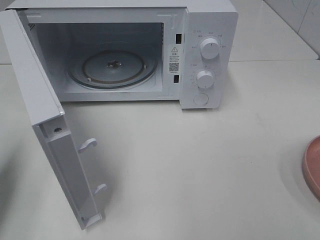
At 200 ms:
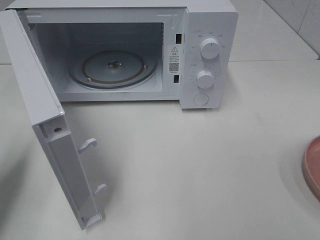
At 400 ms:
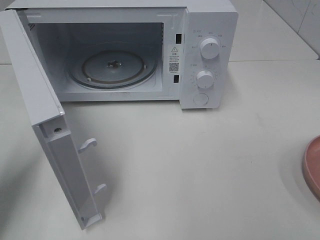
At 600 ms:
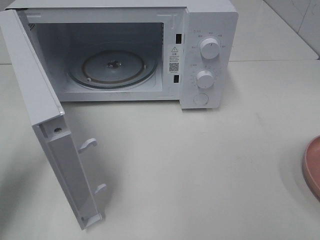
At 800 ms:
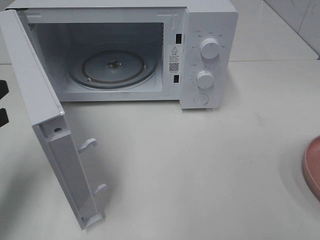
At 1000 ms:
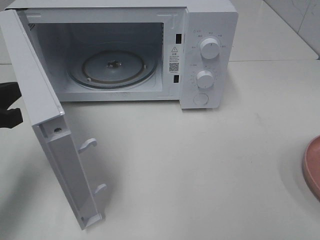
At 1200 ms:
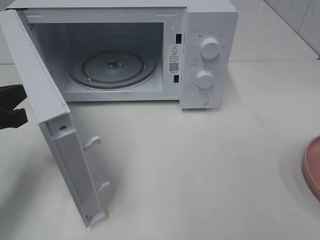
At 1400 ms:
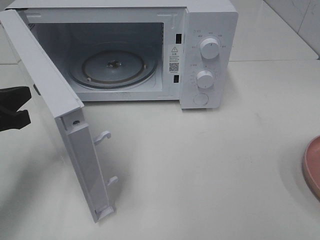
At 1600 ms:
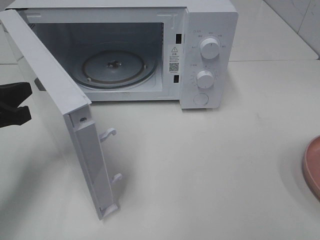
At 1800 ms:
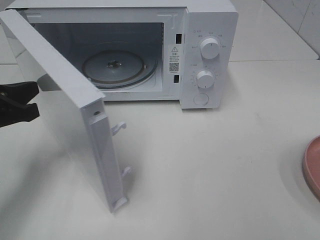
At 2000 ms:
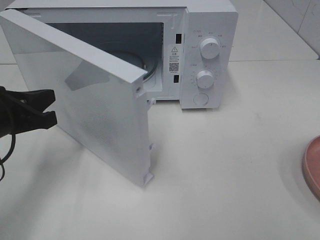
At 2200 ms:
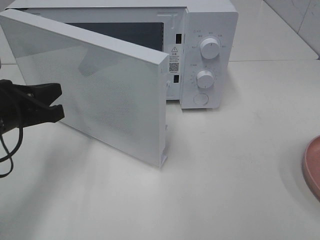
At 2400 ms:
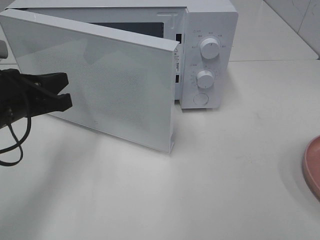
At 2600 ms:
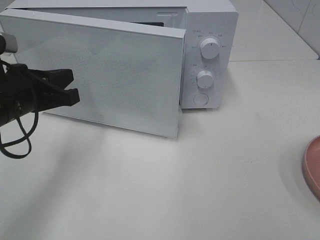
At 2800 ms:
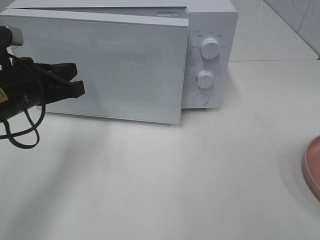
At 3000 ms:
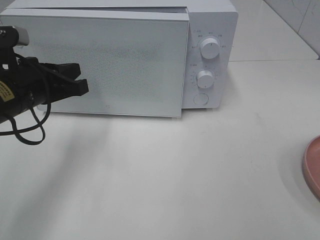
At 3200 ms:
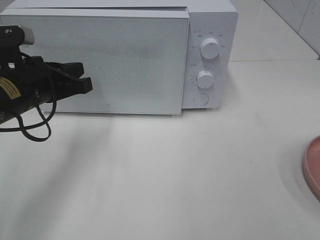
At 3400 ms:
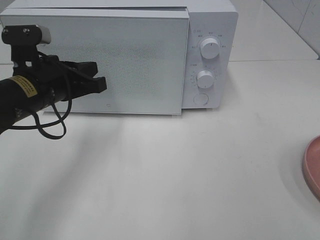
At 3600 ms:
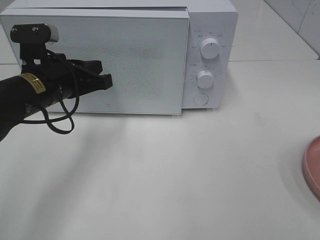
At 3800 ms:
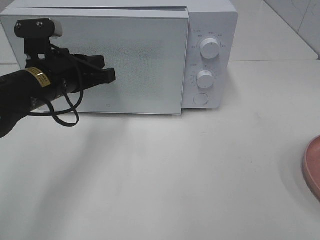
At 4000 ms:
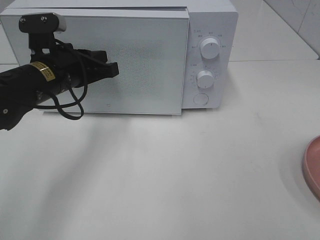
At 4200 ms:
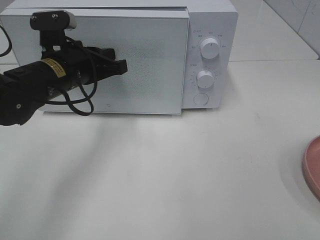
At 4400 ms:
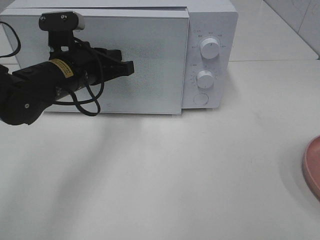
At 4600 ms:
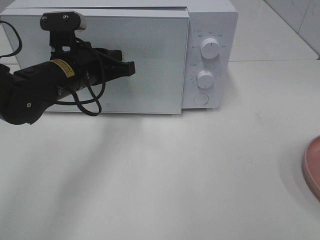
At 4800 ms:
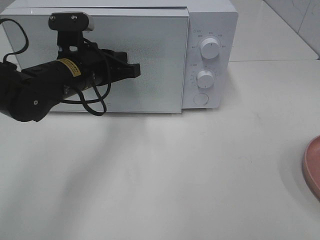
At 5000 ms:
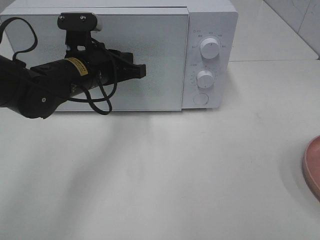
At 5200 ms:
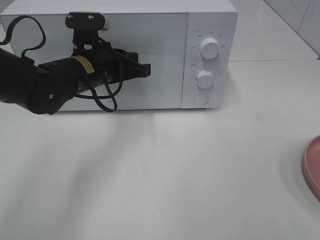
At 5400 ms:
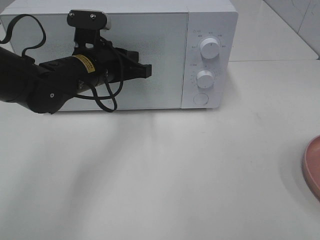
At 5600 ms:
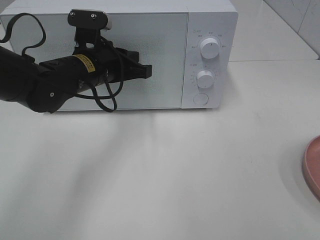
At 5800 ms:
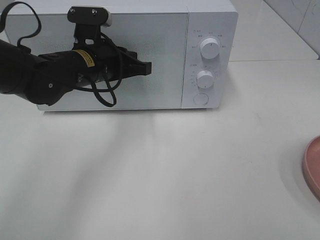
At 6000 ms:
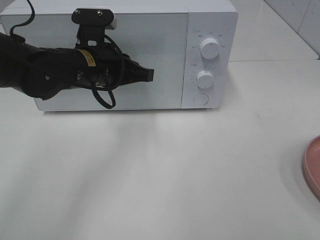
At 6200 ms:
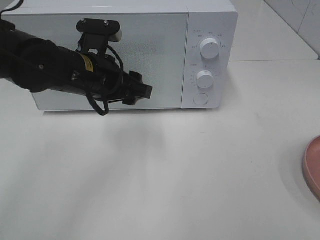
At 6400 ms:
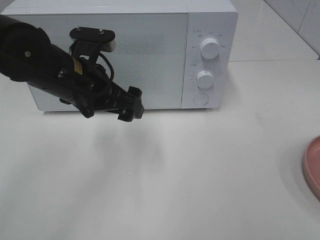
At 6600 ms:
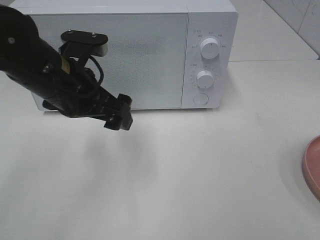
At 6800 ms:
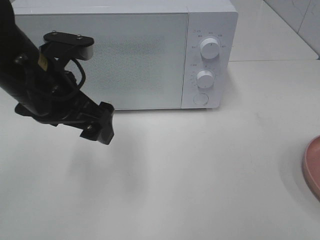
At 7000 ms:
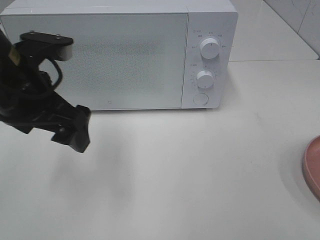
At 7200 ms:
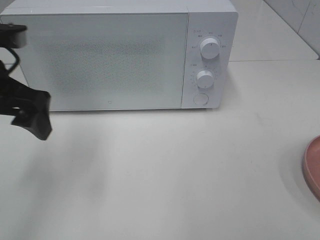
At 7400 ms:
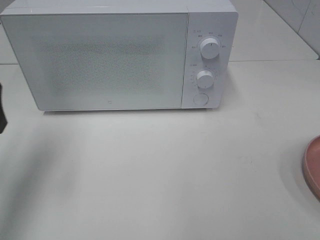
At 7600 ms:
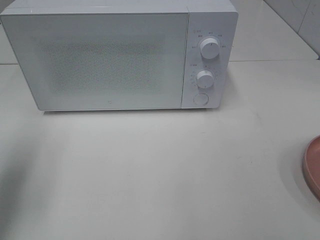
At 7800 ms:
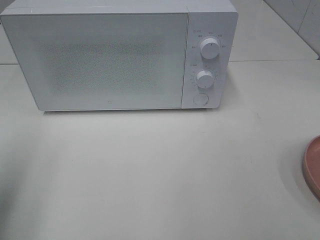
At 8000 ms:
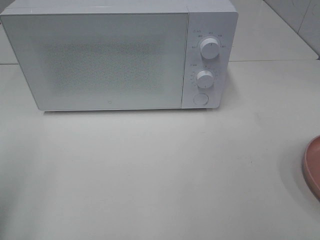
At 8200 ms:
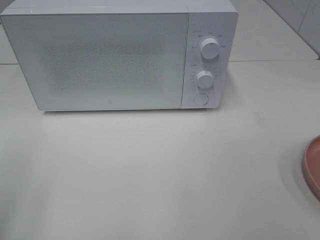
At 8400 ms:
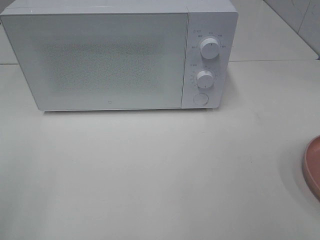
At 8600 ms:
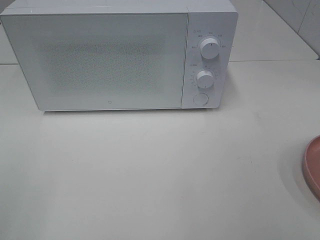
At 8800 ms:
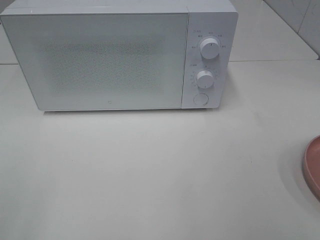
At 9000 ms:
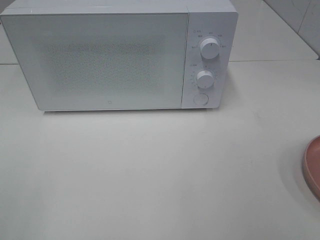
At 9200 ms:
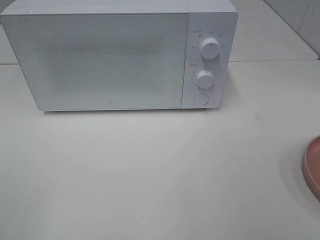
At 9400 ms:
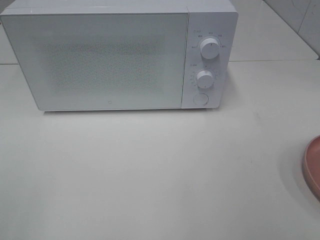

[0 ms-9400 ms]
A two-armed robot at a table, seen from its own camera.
Task of the whole recording: Heat the burger.
Step, 0 ms to 6000 ms: Left hand: close the microwave door.
0 ms to 1600 ms: The left gripper travels to the right, forward and downward by some 10 cm.
1600 ms to 3200 ms: The left gripper shifts approximately 10 cm to the right and forward.
3200 ms to 4800 ms: The left gripper moves to the right and forward, about 10 cm.
4800 ms to 6200 ms: The left gripper opens its fingers.
6200 ms to 7800 ms: The left gripper heads to the left and backward, covering some 25 cm, and opens up.
7800 ms to 9400 ms: The left gripper heads backward, covering some 15 cm.

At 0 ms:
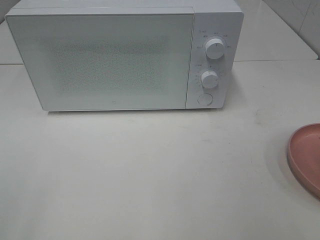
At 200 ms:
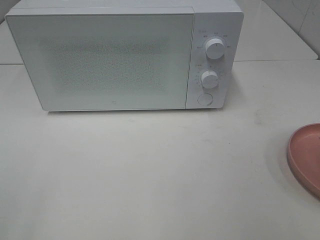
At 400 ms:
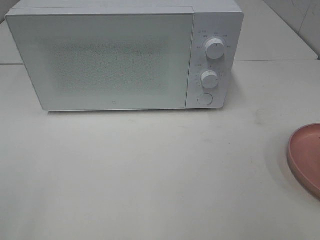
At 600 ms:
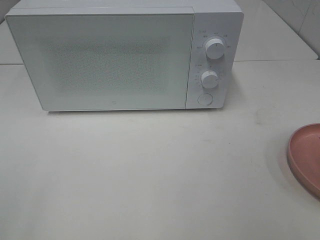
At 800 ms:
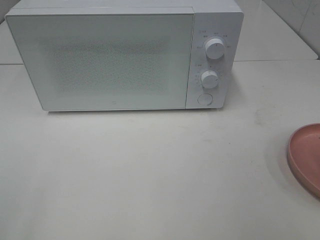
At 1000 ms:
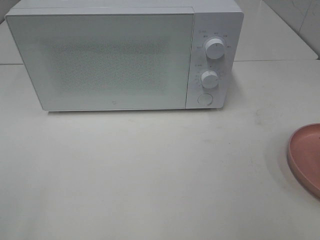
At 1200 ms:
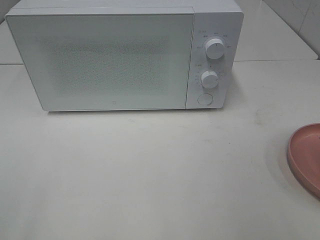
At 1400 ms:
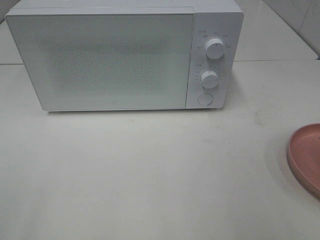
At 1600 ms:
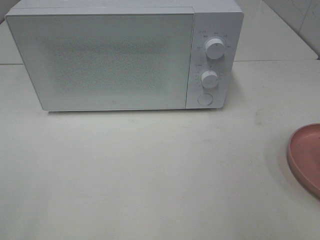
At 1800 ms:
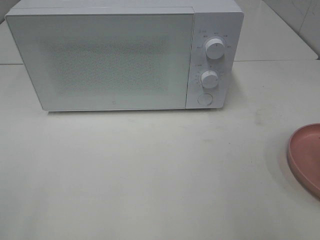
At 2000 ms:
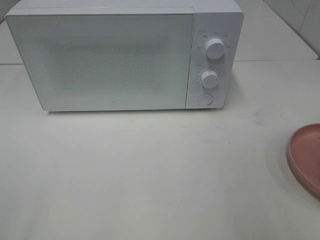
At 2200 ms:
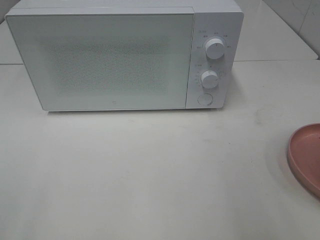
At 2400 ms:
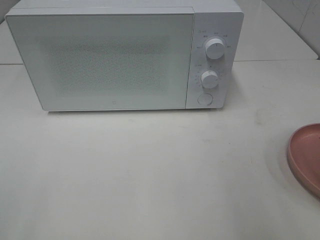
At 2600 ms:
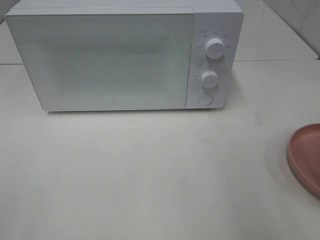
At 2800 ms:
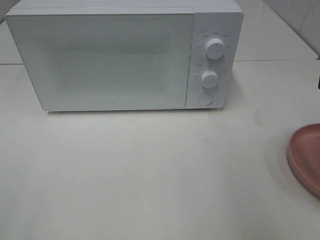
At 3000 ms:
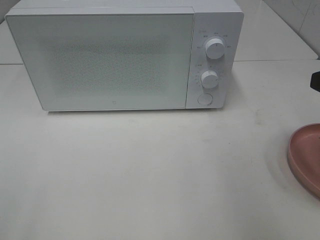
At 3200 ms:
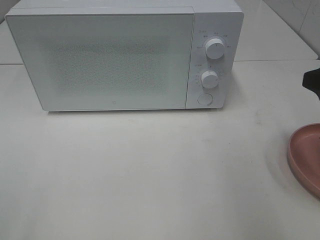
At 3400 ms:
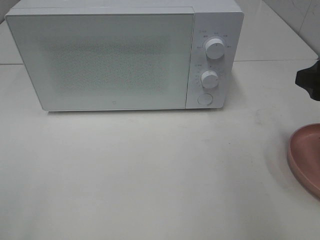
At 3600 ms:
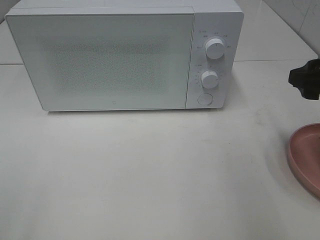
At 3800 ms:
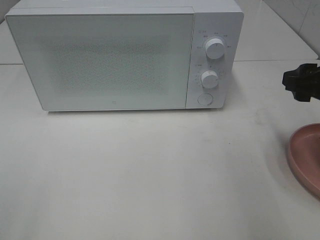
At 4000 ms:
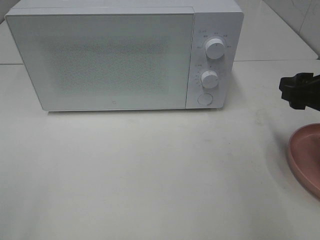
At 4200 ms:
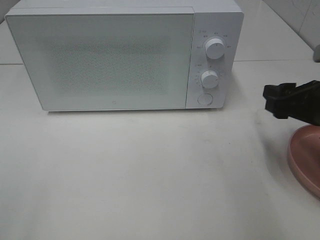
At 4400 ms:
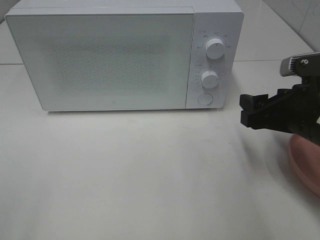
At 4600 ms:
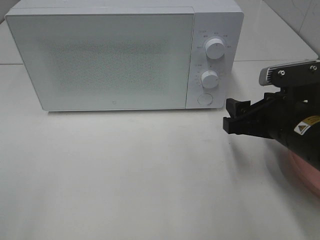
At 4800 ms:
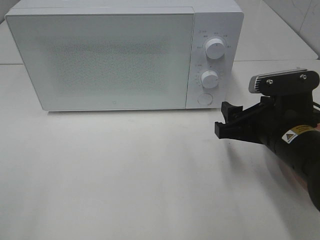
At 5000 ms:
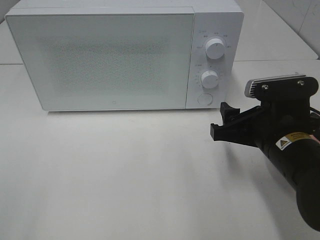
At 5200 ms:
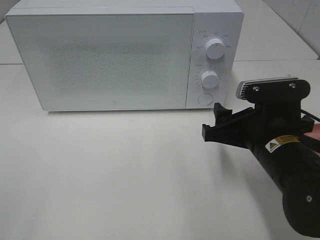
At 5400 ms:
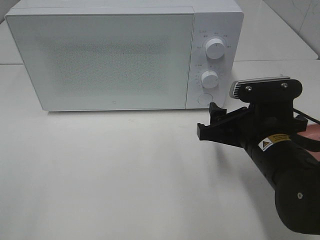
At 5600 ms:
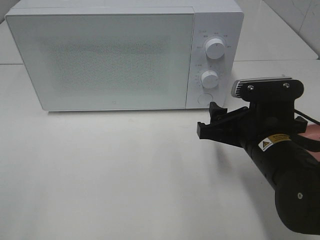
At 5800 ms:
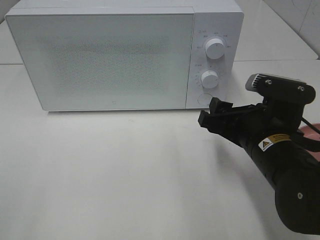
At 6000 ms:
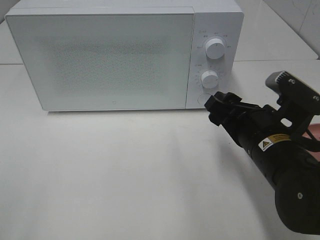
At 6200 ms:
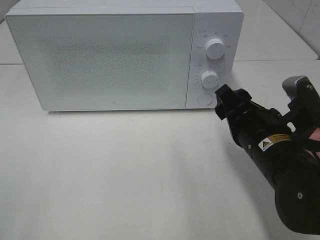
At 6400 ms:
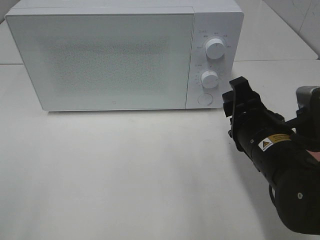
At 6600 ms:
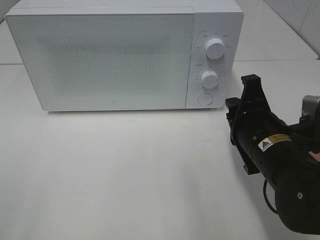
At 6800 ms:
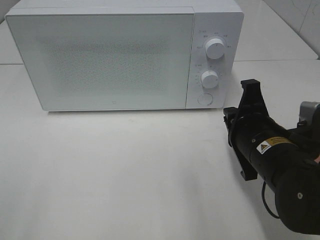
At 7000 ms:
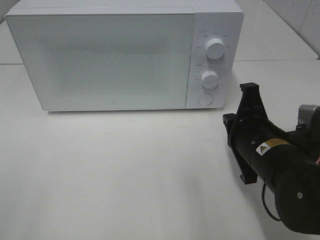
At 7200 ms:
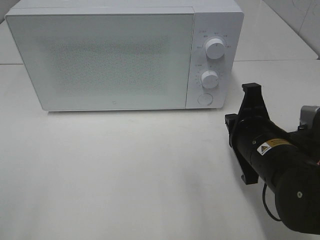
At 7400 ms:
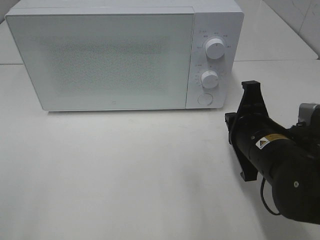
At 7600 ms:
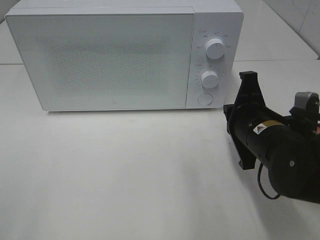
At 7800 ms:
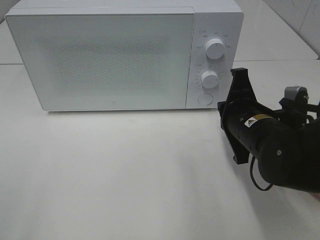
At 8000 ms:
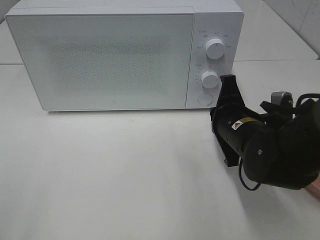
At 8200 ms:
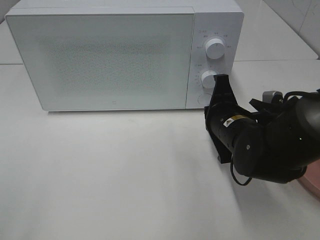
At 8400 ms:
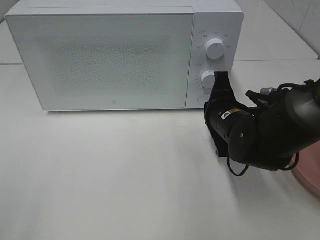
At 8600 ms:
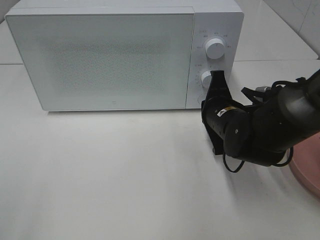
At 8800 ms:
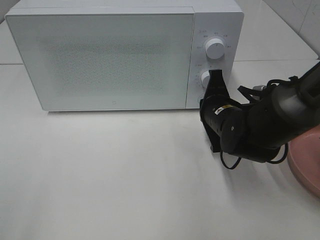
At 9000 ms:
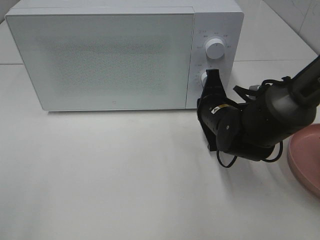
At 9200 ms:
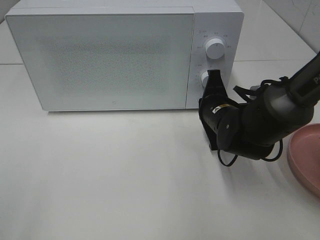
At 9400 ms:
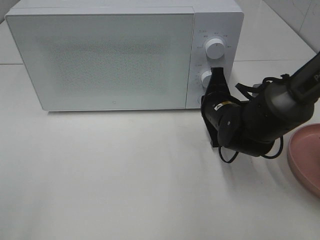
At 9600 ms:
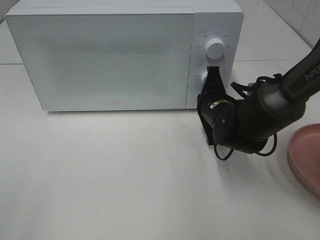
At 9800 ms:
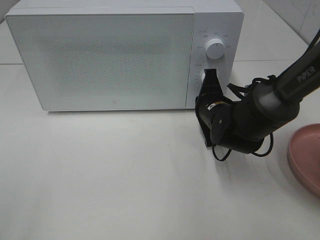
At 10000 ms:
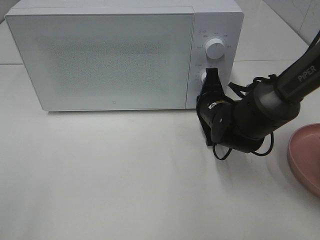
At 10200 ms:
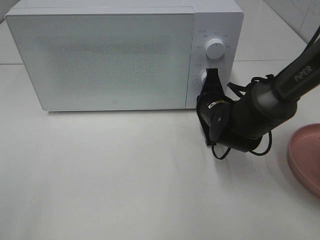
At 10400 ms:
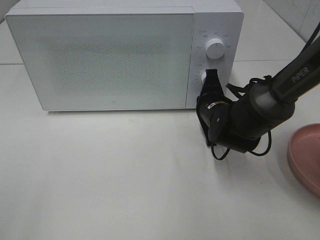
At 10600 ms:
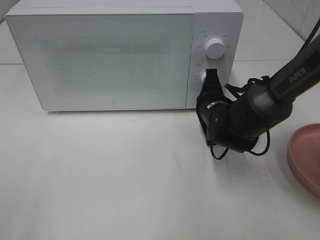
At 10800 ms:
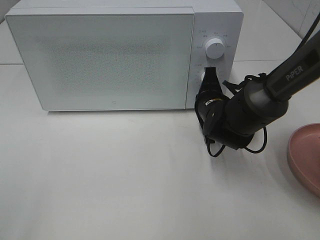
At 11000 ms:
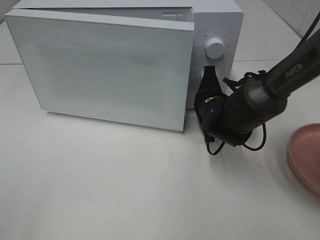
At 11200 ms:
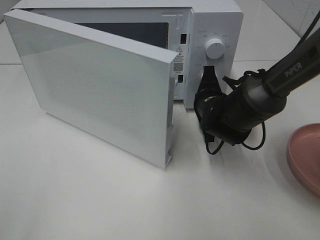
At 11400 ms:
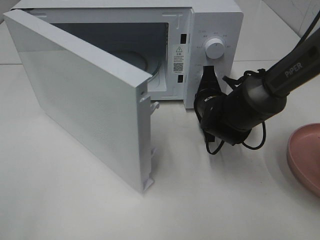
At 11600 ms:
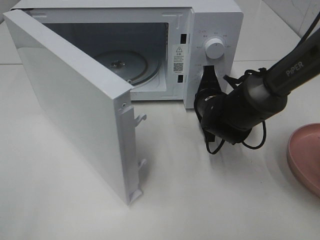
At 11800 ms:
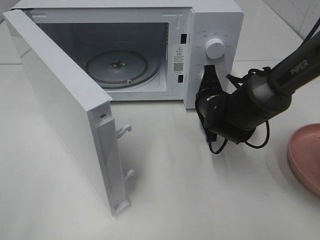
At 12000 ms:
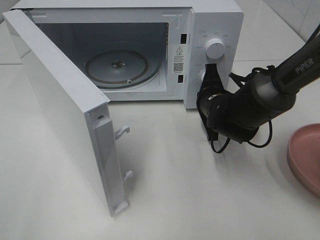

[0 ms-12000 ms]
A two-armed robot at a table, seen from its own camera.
Task of the whole recording: Heat the burger.
3000 ms to 4400 ms: The right gripper travels downward and to the left by roughly 10 cm.
4400 ms to 6000 ms: The right gripper travels to the left by approximately 5 cm.
6000 ms to 7600 ms: The right gripper closes its fingers.
7600 ms to 9000 ms: The right gripper moves forward, about 10 cm.
9000 ms to 10400 ms: There are only small adjustments of the grippers.

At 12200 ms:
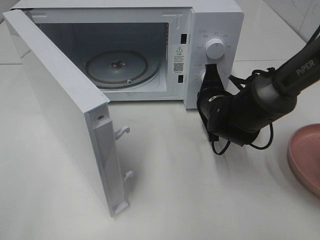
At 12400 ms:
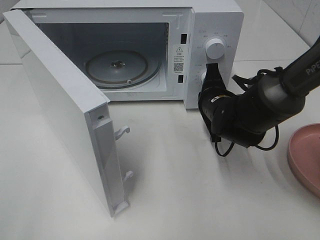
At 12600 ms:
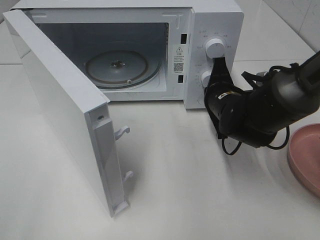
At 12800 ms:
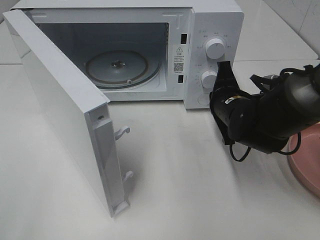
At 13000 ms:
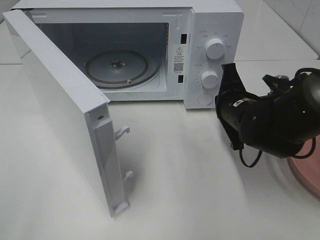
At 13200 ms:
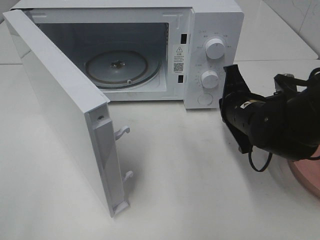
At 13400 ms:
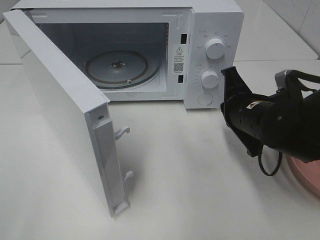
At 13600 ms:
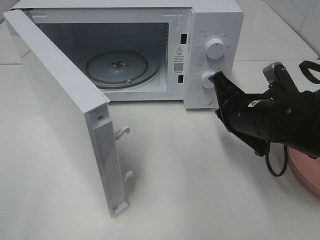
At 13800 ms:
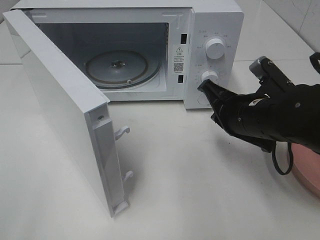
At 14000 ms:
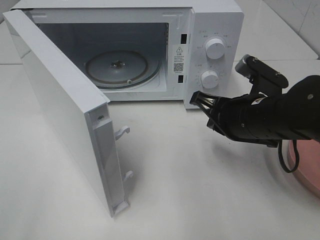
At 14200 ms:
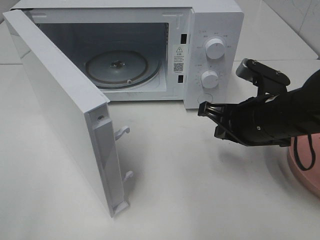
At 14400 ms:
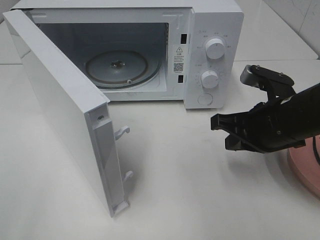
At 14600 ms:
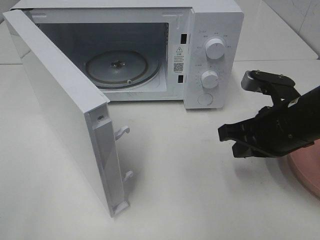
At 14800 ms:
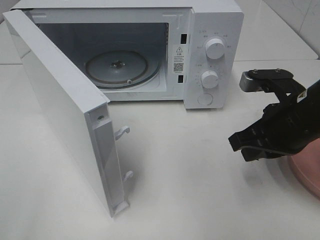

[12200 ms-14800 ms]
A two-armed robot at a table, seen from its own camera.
Task of the whole recording: Heat the burger.
12200 ms to 13400 ms: The right gripper goes roughly 5 cm backward.
13400 ms to 14800 ms: The right gripper ends up about 5 cm from where it was.
